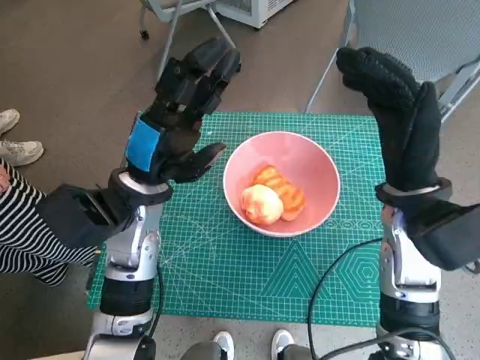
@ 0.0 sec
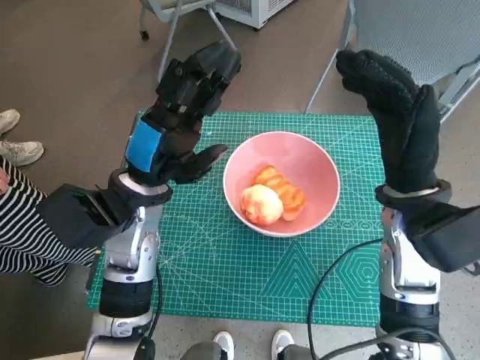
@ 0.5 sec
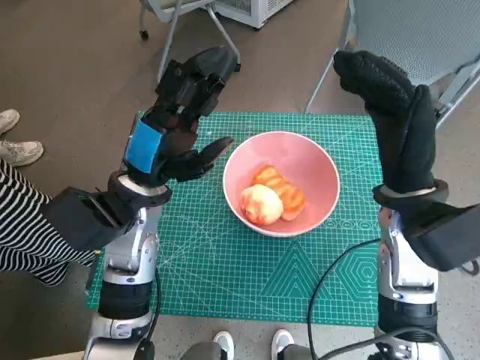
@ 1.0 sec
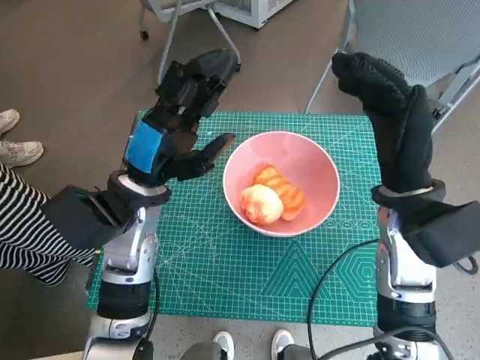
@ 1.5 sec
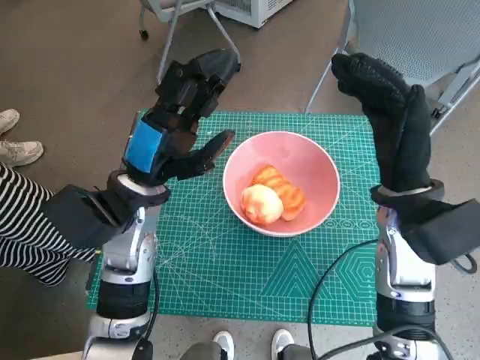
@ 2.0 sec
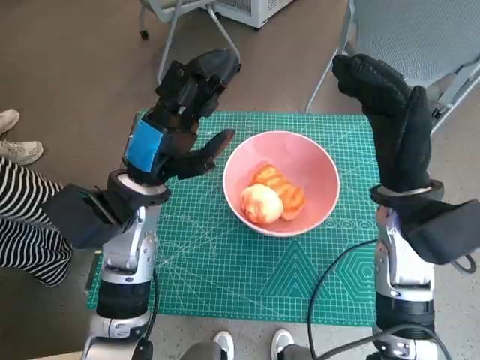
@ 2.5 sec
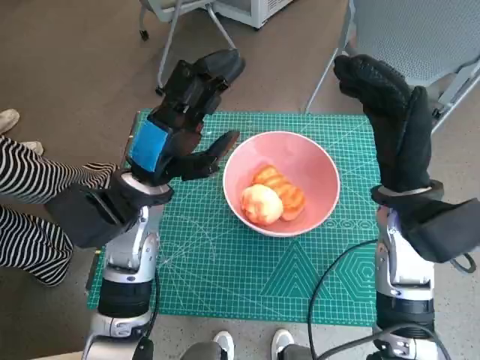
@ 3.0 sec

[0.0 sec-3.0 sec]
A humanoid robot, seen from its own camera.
Task of the whole recording: Push the bowl into the center of the table and put the bread into the bowl.
0.0 sec to 3.0 sec: The two hands keep their place.

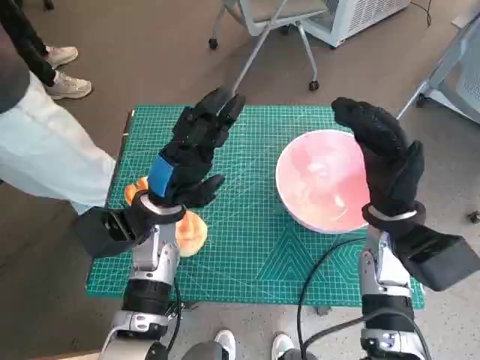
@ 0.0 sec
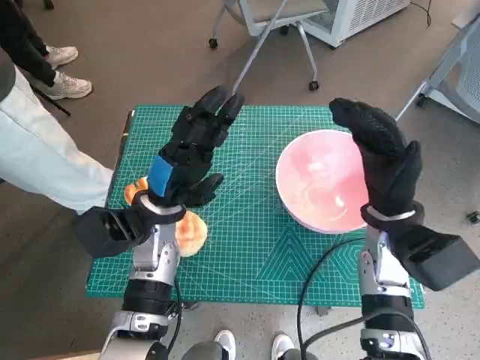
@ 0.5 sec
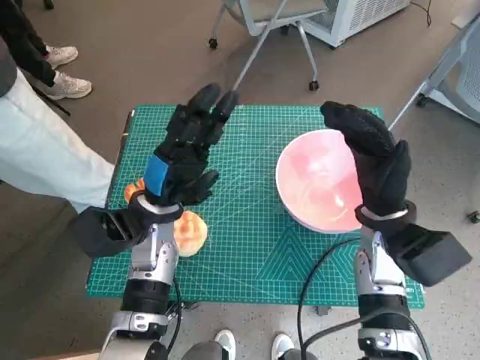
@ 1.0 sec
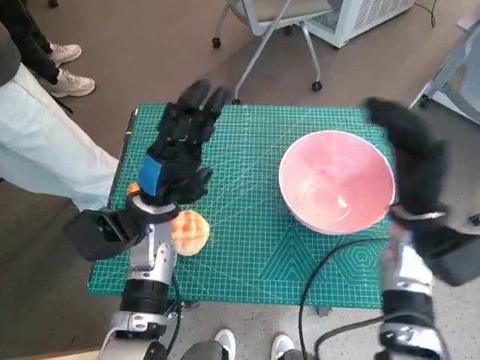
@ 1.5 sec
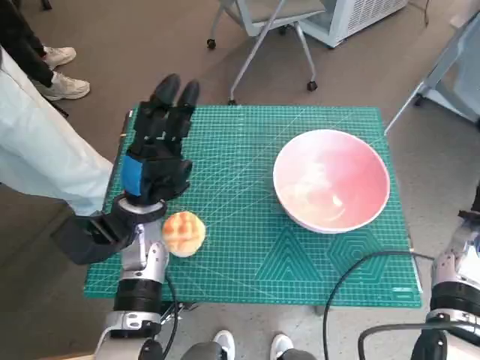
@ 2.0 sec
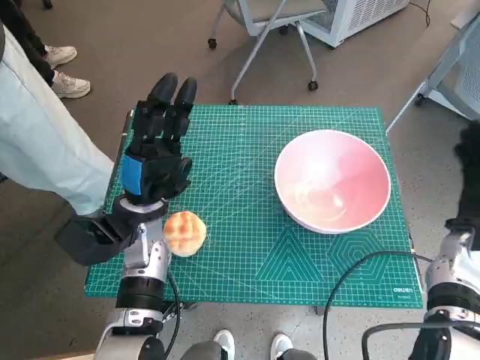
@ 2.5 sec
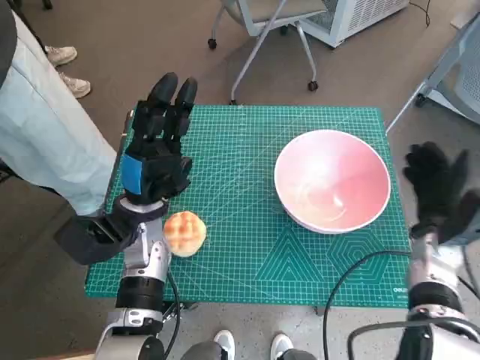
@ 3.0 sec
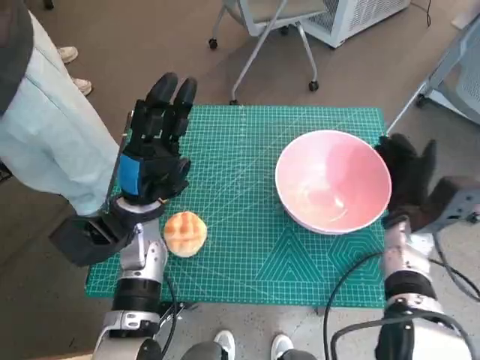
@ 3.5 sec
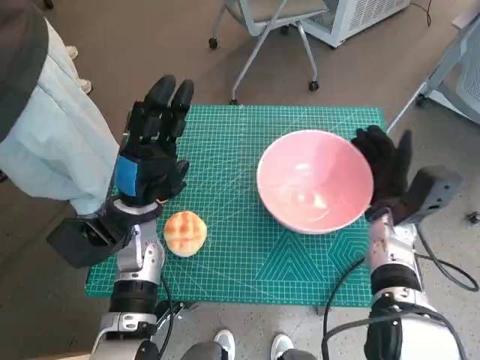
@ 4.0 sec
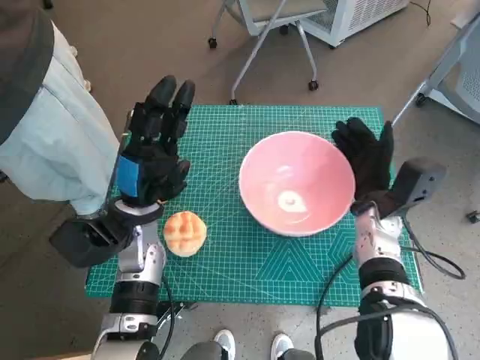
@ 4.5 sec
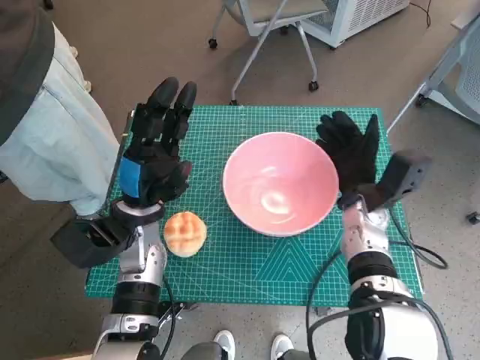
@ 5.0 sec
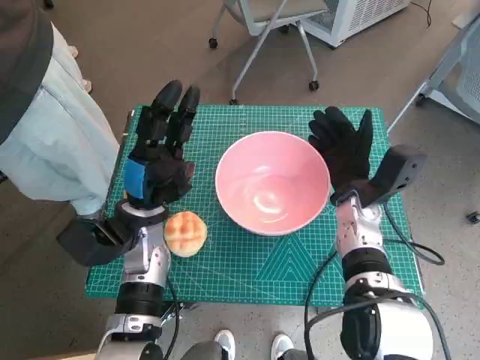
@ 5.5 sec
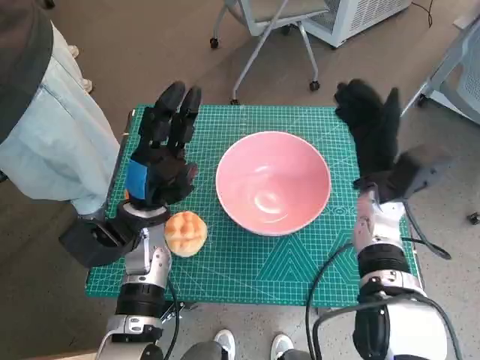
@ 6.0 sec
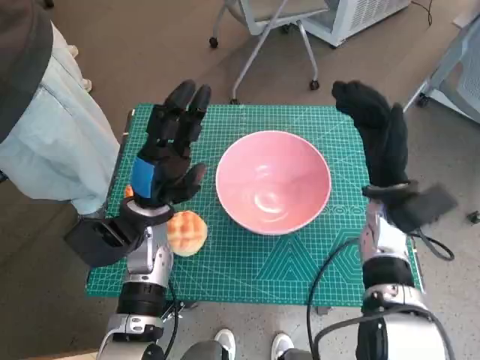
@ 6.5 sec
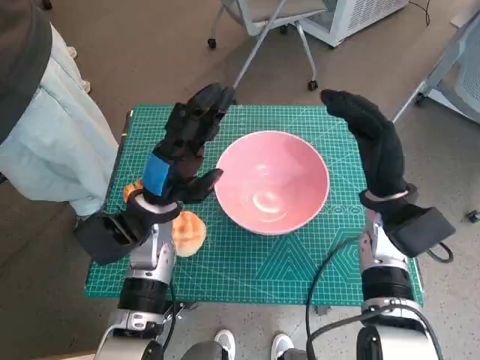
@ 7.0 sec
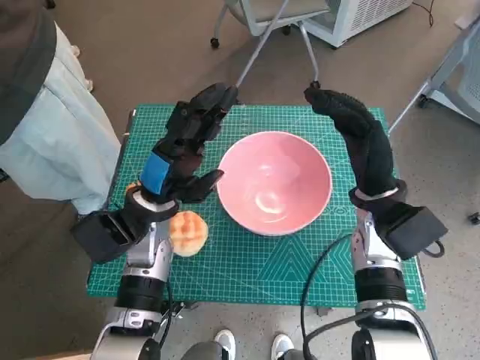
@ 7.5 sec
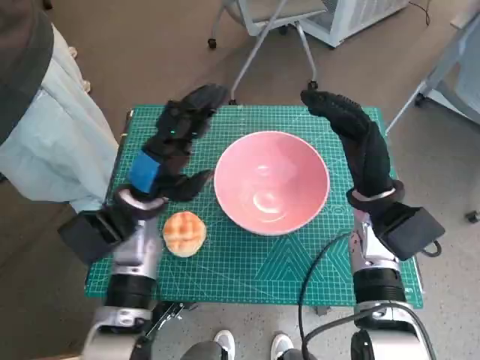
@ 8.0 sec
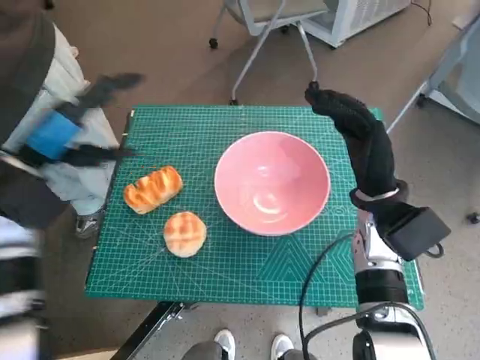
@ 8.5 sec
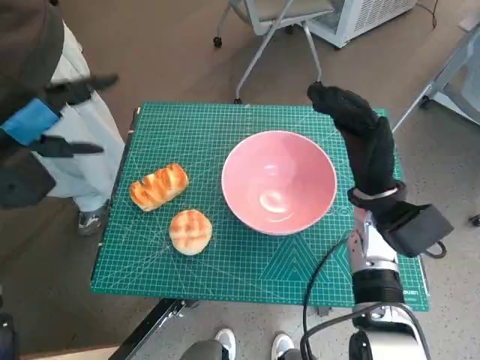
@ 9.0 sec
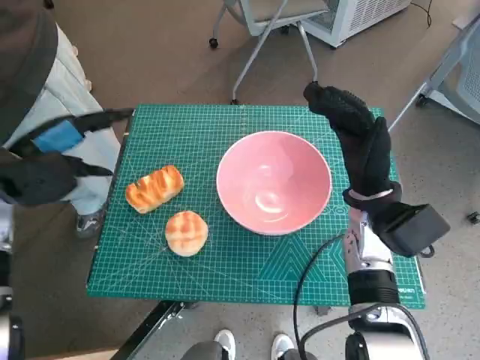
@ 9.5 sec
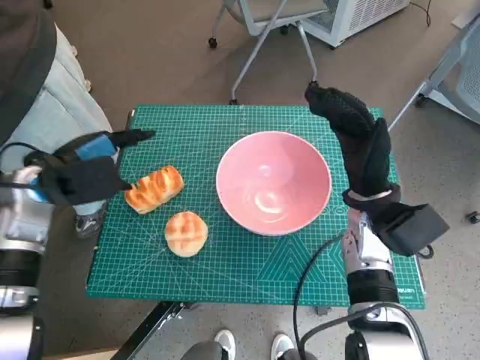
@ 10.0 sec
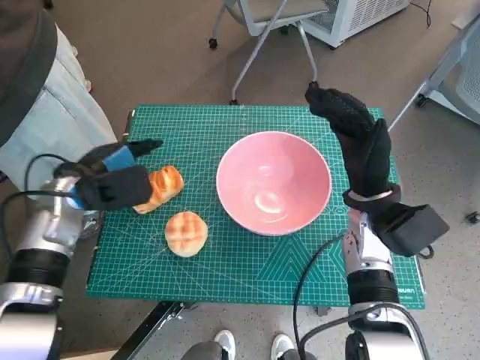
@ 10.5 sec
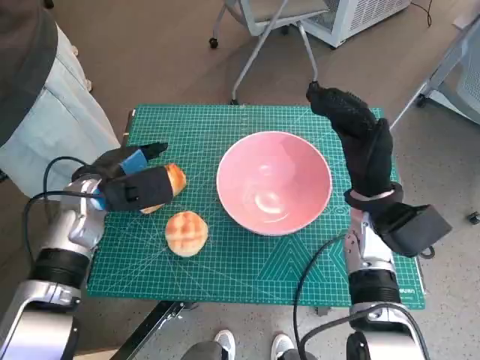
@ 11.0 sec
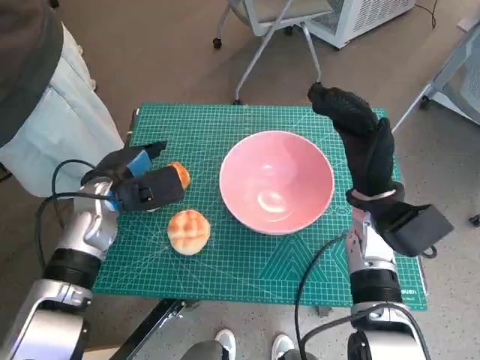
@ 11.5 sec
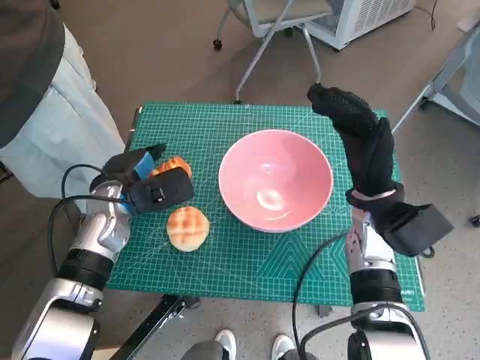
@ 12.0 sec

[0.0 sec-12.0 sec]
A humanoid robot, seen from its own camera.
Task of the whole recording: Push the bowl into the center of the table and put the bread into the bowl.
Step, 0.0 sec to 5.5 sec: Move the pink bowl to the center of table with right hand.
2.0 sec to 4.0 sec: The right hand heads to the left and downward, covering approximately 10 cm.
4.0 sec to 6.0 sec: The right hand shifts by some 5 cm.
8.0 sec to 10.0 sec: The left hand travels to the left and upward by some 15 cm.
10.0 sec to 12.0 sec: The left hand heads downward and to the right, covering some 10 cm.

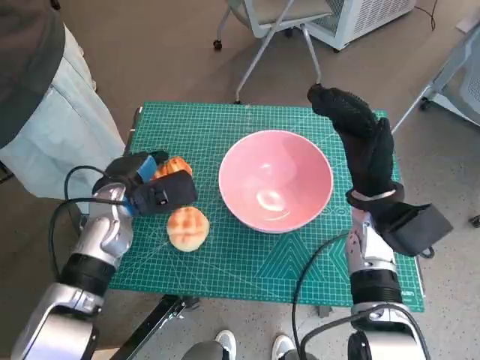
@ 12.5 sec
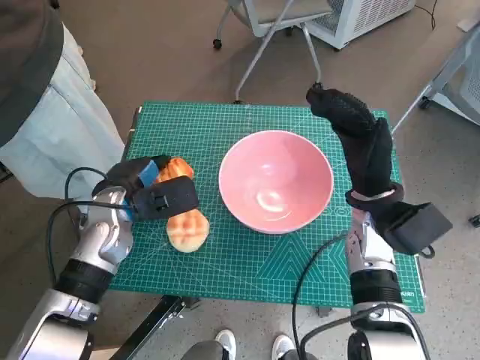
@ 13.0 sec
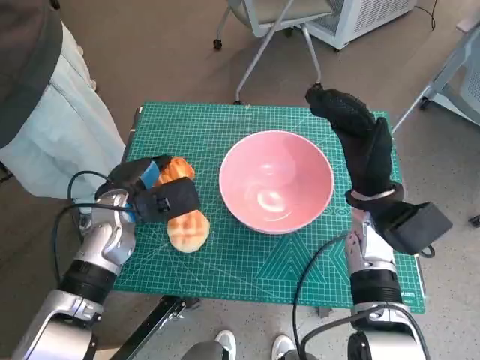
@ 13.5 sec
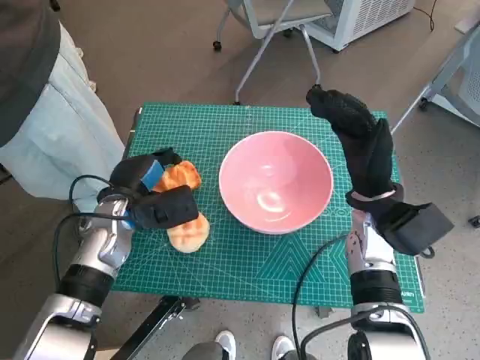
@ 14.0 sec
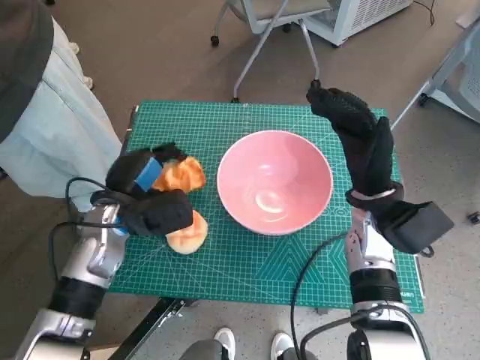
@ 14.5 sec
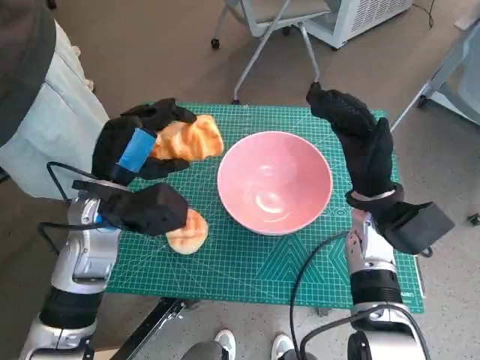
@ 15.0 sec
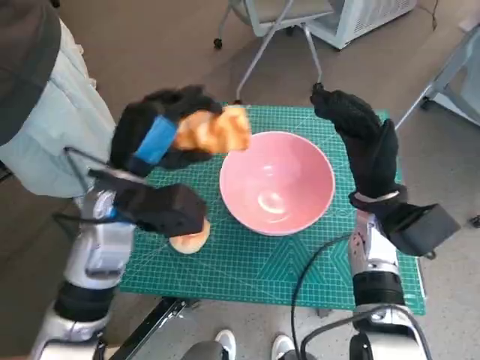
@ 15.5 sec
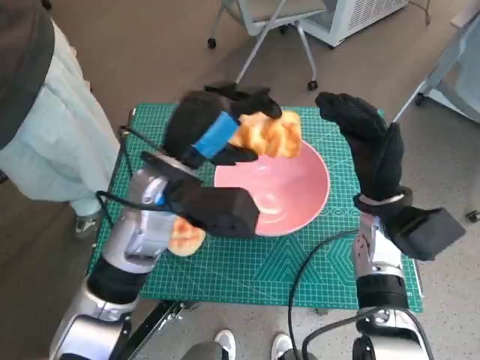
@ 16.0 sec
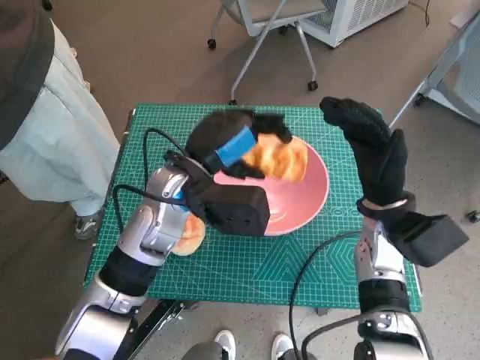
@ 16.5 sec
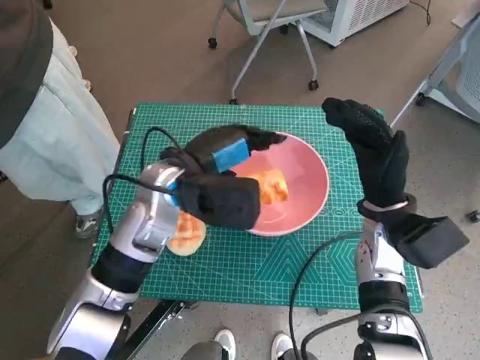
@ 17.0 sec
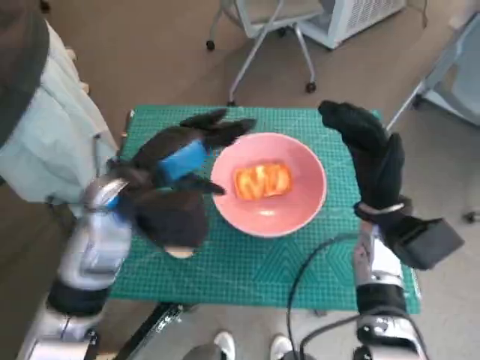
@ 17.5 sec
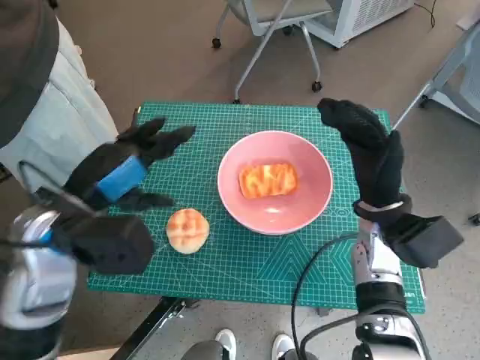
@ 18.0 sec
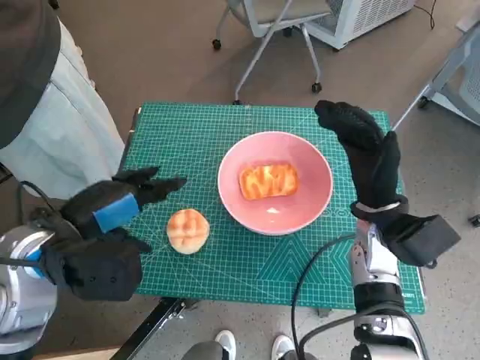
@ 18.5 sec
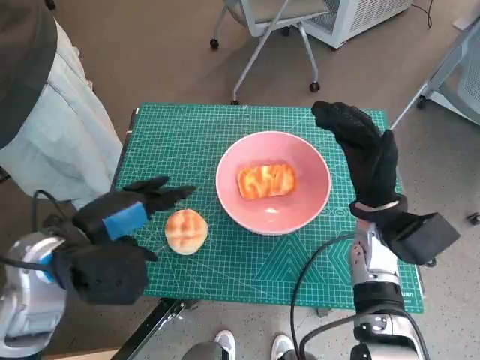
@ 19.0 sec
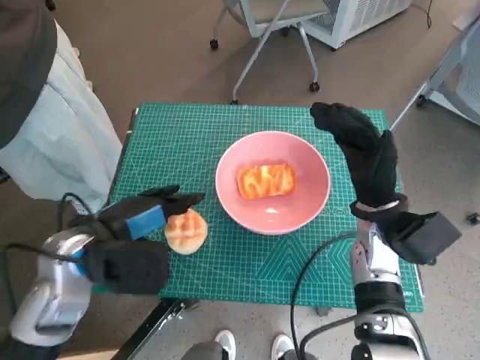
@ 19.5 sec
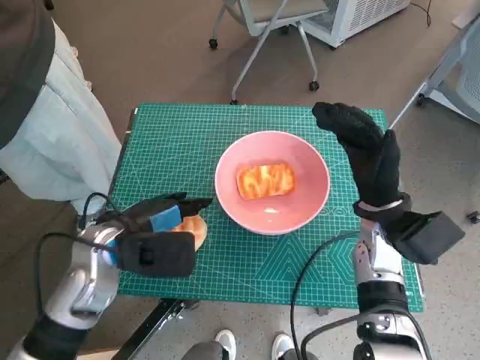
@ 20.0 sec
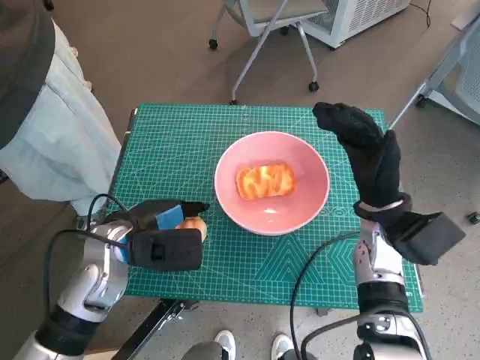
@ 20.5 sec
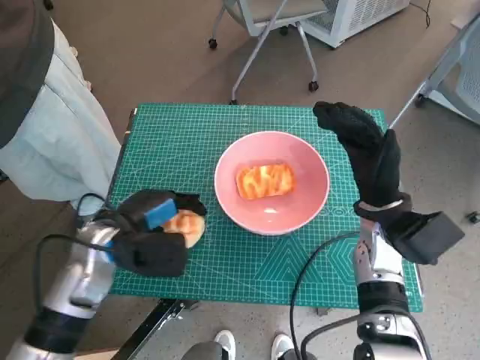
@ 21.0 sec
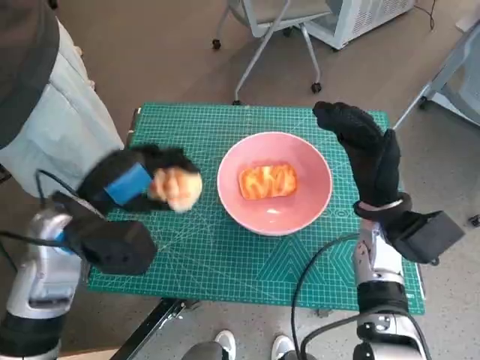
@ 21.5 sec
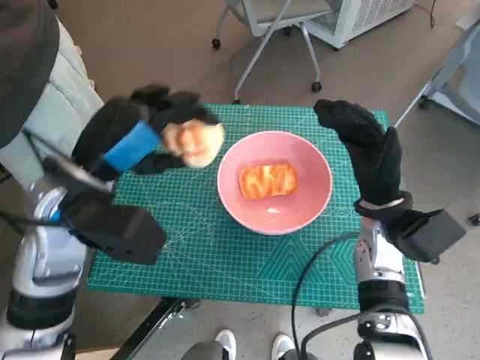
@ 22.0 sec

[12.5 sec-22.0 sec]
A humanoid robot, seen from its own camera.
Task of the whole recording: Push the bowl into the center of the table and put the bread into the bowl.
Step, 13.0 sec to 17.0 sec: Place the long bread in pink bowl with left hand.
Step, 17.5 sec to 20.5 sec: Grasp the round bread with left hand.
14.5 sec to 16.5 sec: The left hand is displaced to the right and upward by approximately 15 cm.
16.5 sec to 18.0 sec: The left hand travels to the left and backward by about 15 cm.
18.0 sec to 20.0 sec: The left hand travels downward by some 5 cm.
20.0 sec to 22.0 sec: The left hand travels upward by about 10 cm.

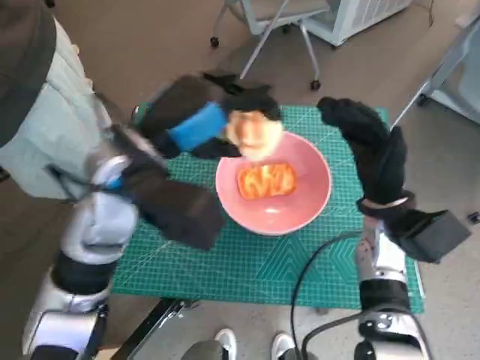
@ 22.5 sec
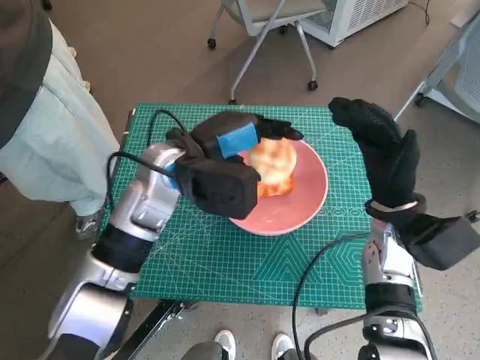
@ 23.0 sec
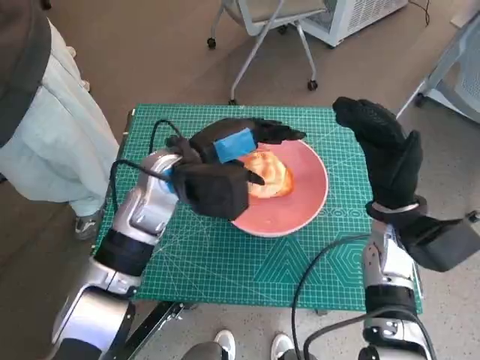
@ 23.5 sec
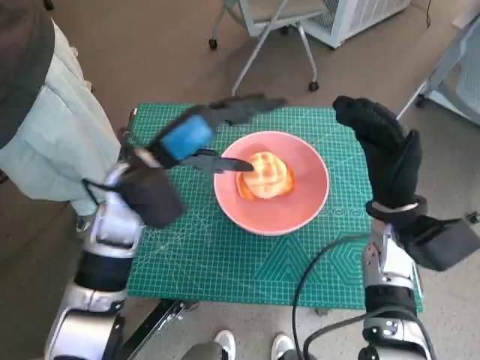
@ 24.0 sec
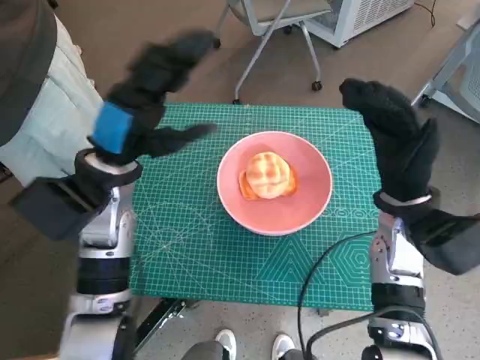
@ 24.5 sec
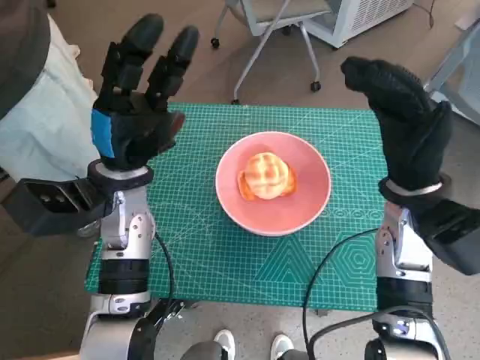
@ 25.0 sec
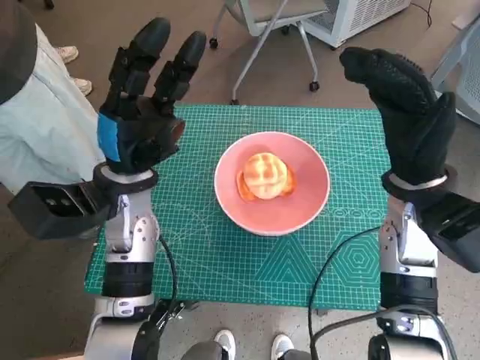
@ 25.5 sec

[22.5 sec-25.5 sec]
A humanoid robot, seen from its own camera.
Task of the whole recording: Push the bowl into the center of the table and put the bread into the bowl.
22.5 sec to 24.0 sec: The left hand heads downward, covering about 5 cm.
24.0 sec to 25.5 sec: The right hand moves upward, roughly 5 cm.
